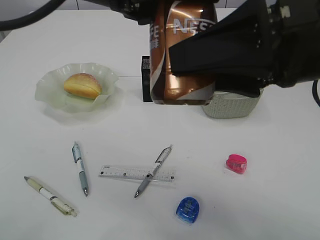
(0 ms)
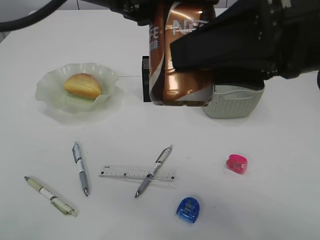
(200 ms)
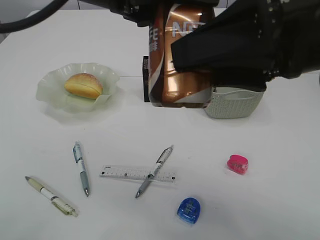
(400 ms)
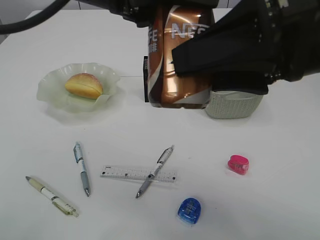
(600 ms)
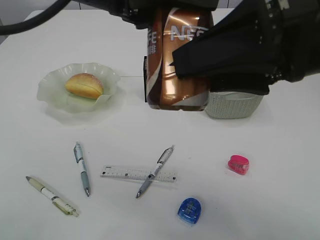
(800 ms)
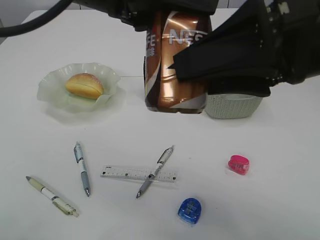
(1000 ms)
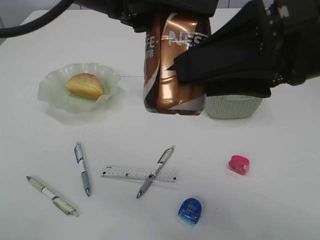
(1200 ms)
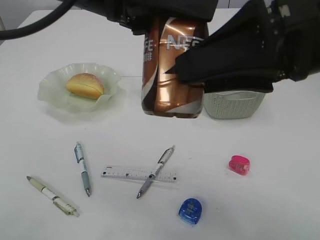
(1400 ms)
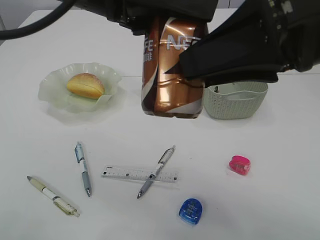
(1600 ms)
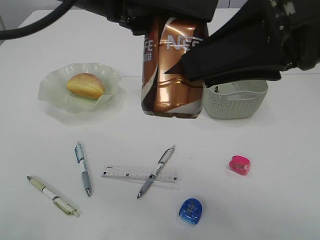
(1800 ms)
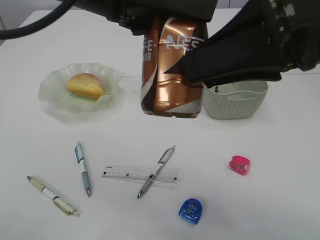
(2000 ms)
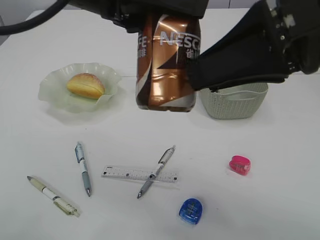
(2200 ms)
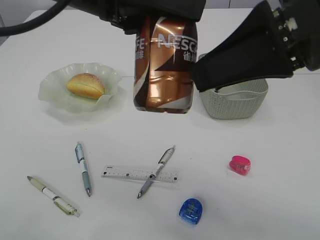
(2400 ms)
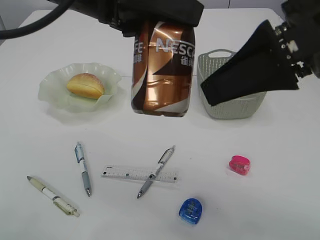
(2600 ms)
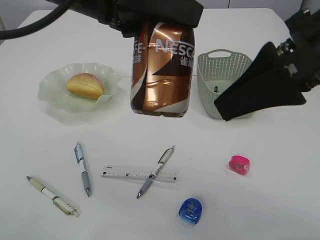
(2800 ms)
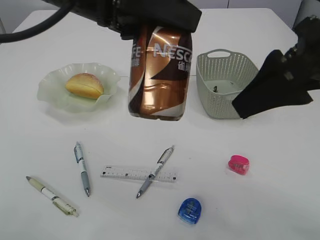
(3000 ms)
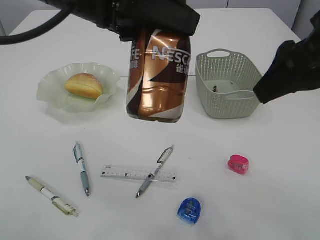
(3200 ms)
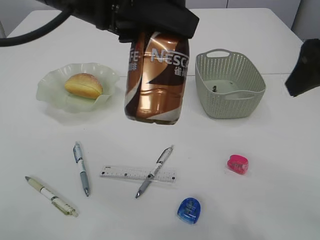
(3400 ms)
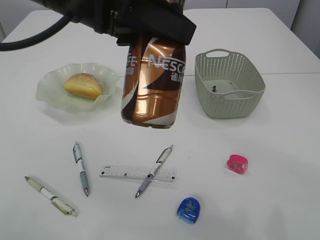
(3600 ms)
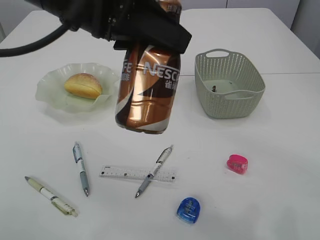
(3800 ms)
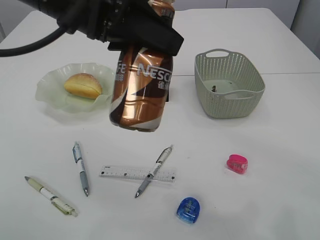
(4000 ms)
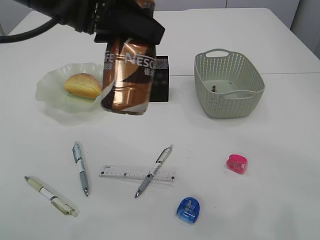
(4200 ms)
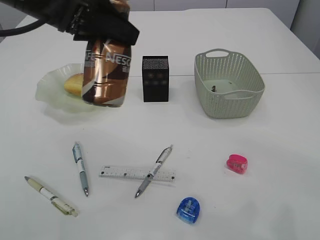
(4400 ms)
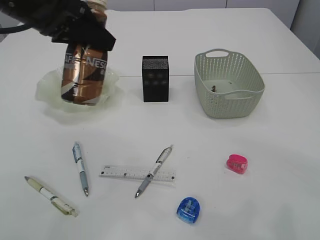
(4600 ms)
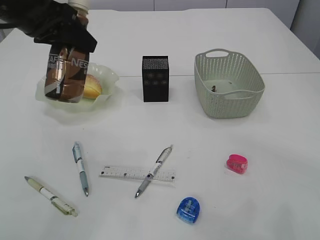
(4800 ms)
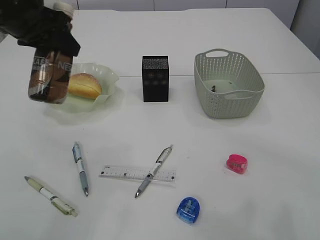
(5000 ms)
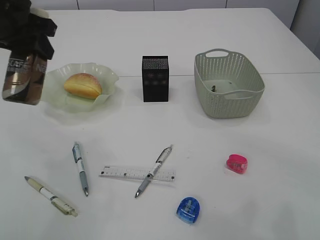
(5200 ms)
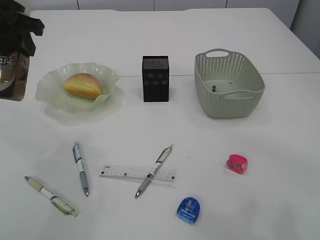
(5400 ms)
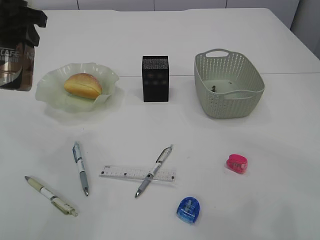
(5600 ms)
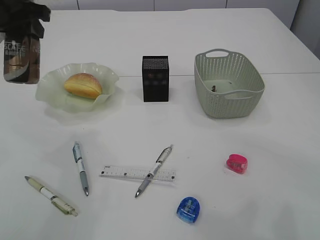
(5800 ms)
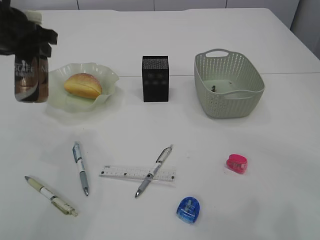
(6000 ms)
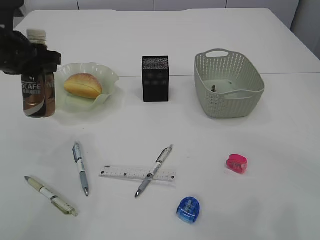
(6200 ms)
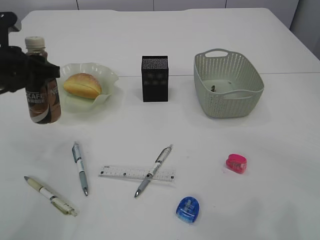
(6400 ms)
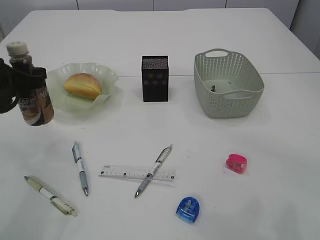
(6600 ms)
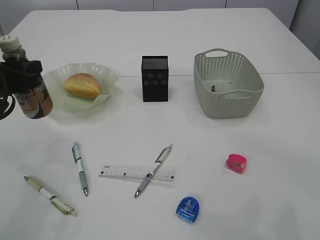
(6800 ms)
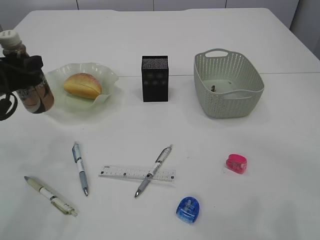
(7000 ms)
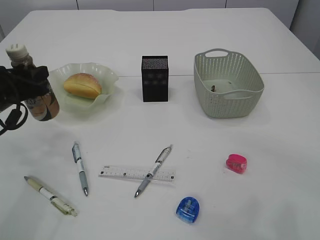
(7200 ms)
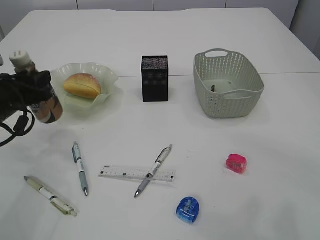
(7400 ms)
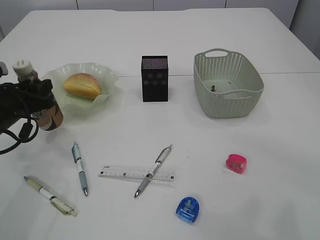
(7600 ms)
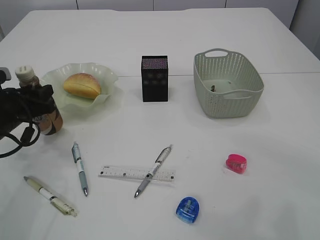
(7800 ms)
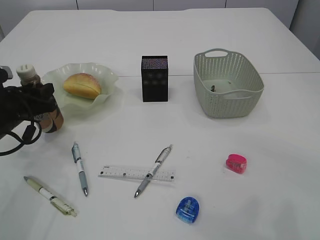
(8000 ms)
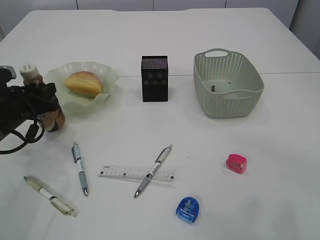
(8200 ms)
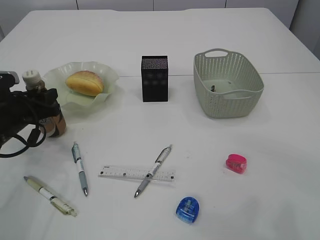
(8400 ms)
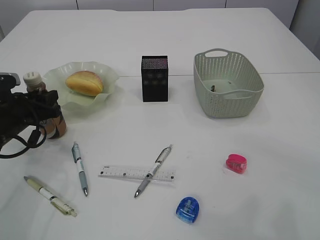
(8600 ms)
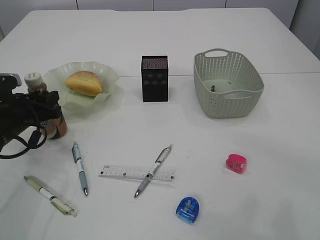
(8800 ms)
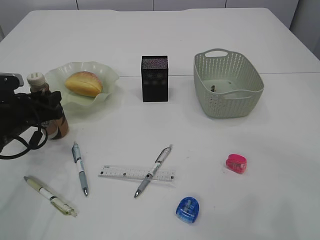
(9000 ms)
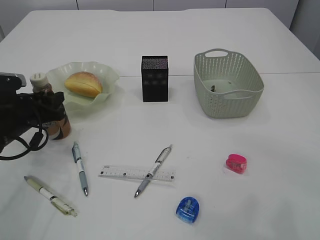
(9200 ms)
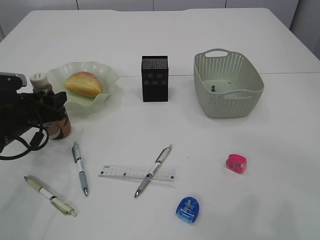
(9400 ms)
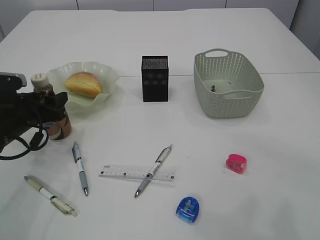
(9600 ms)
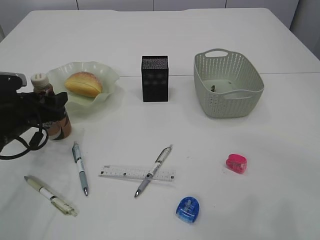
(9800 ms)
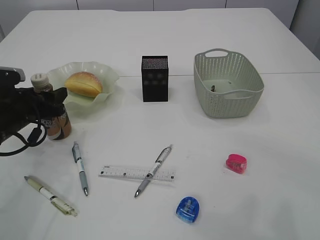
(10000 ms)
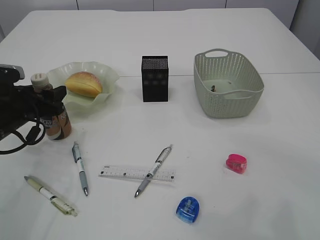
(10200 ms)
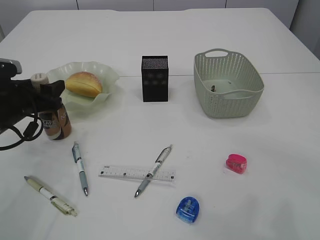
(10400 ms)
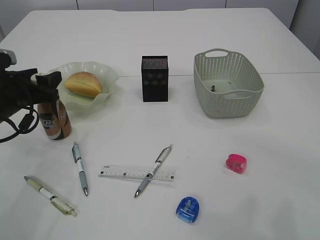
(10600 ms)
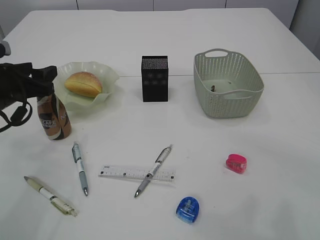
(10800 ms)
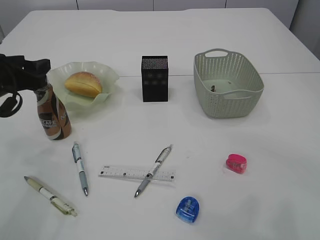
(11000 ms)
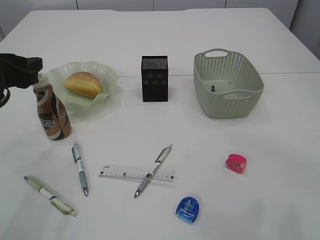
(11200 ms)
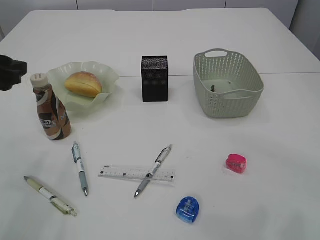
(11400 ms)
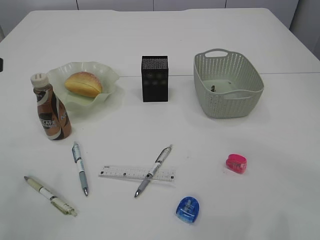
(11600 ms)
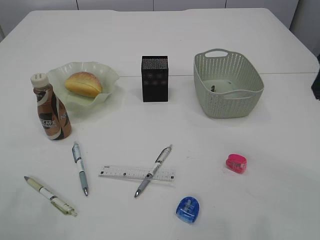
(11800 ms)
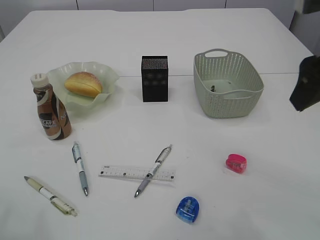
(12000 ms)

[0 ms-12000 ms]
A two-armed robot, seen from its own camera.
Step, 0 ms to 2800 ms: transfer the bottle to the left arm.
Step, 3000 ms to 11200 ms: Place the bottle.
0 ms to 1600 ms: The grippers make only small movements.
3000 ms to 4400 ms: The right gripper goes roughly 10 cm to the right. Meanwhile the left gripper travels to the left by roughly 5 cm.
4400 ms to 6000 ms: The left gripper moves to the left, forward and downward, approximately 15 cm.
6000 ms to 7600 ms: The left gripper travels downward by some 15 cm.
7600 ms to 9000 ms: The grippers move only a little.
9000 ms to 10400 ms: The left gripper opens its fingers.
10400 ms to 12000 ms: The right gripper moves some 5 cm, while the left gripper heads upward and backward, covering approximately 25 cm.

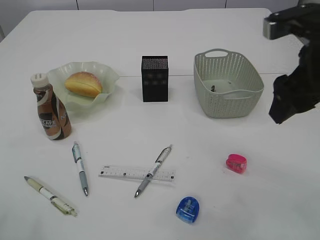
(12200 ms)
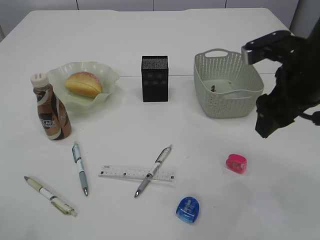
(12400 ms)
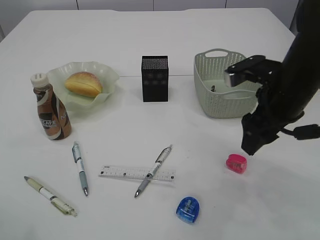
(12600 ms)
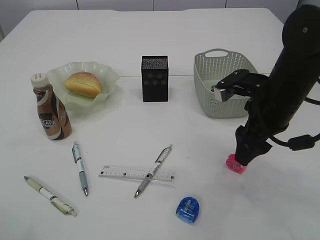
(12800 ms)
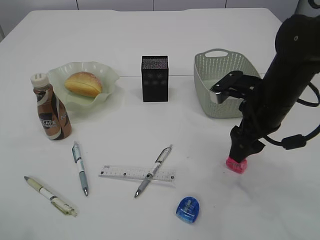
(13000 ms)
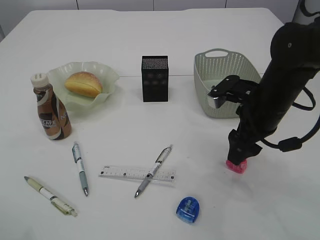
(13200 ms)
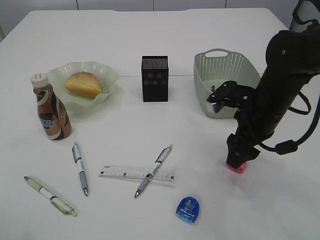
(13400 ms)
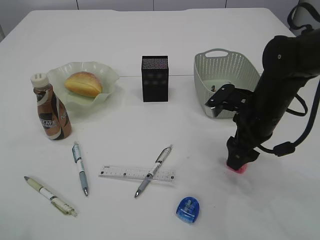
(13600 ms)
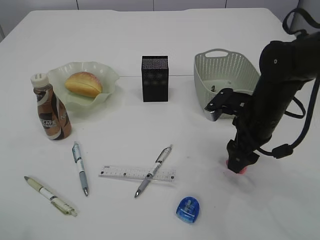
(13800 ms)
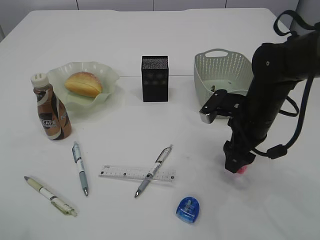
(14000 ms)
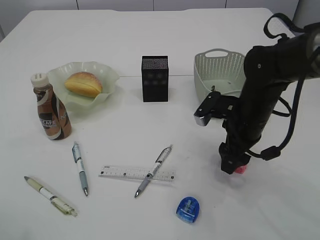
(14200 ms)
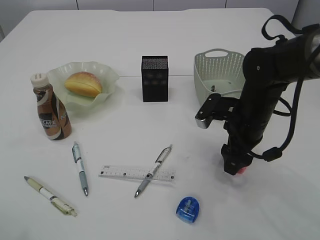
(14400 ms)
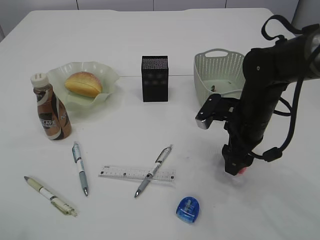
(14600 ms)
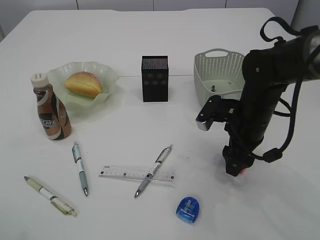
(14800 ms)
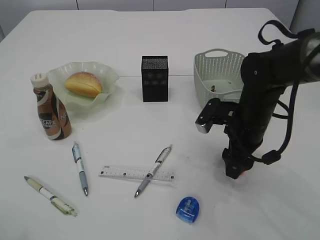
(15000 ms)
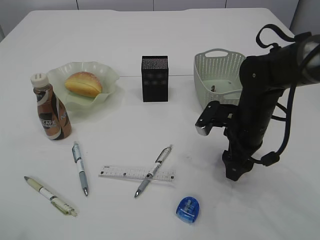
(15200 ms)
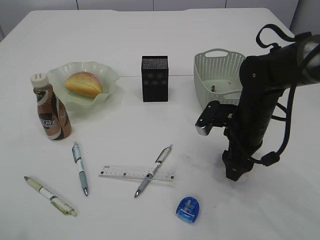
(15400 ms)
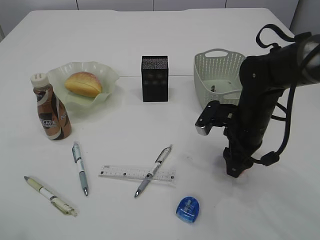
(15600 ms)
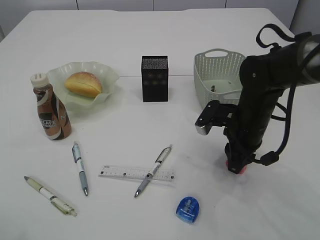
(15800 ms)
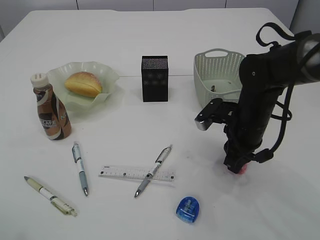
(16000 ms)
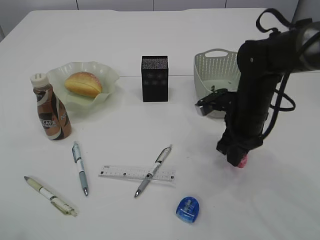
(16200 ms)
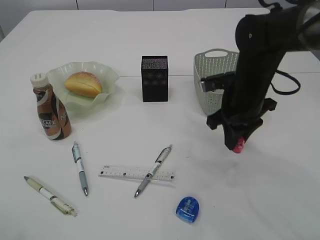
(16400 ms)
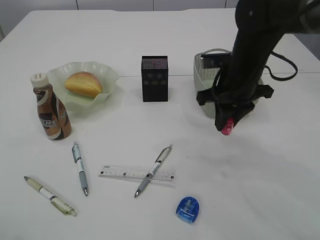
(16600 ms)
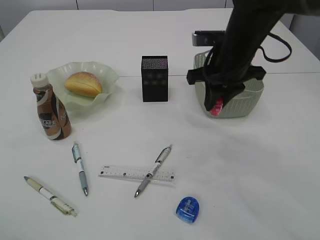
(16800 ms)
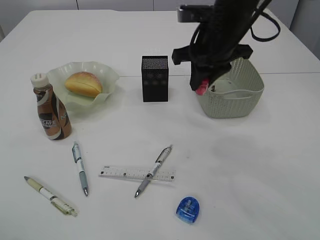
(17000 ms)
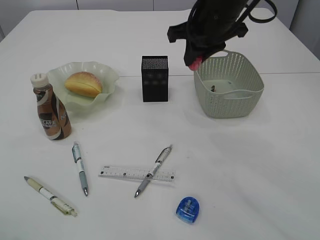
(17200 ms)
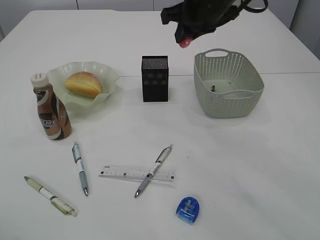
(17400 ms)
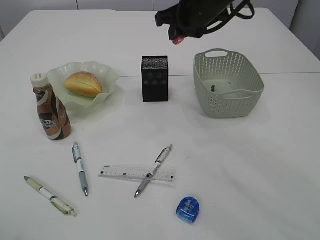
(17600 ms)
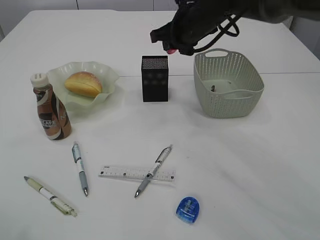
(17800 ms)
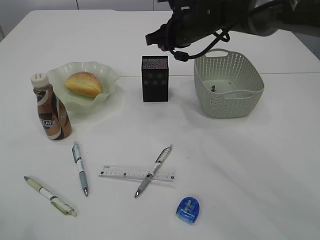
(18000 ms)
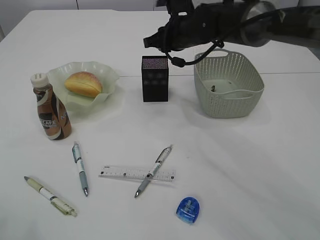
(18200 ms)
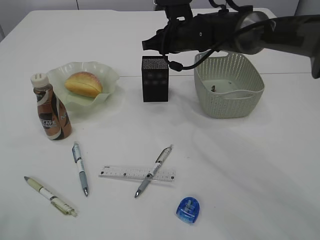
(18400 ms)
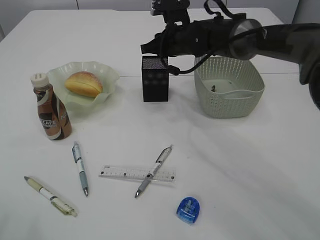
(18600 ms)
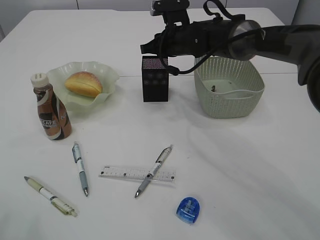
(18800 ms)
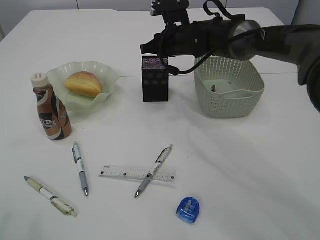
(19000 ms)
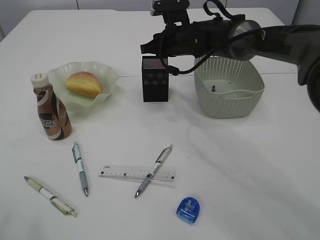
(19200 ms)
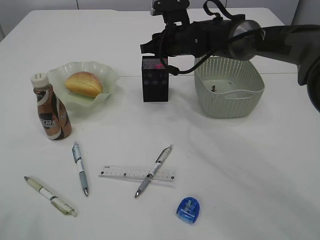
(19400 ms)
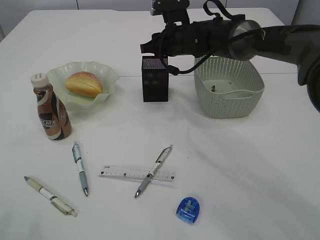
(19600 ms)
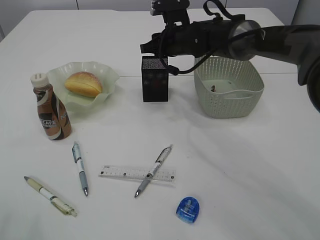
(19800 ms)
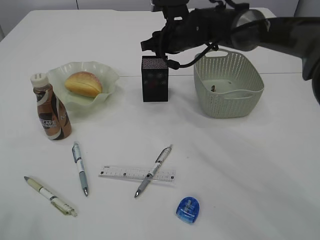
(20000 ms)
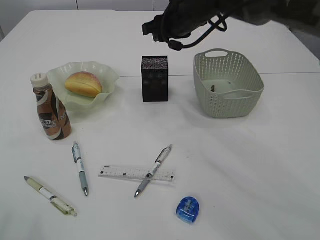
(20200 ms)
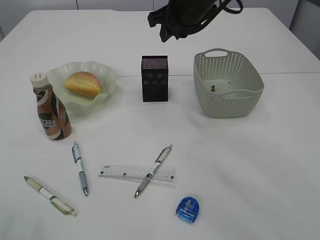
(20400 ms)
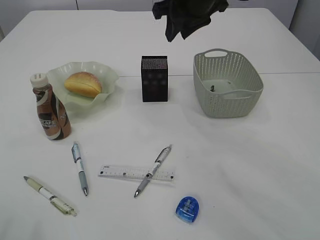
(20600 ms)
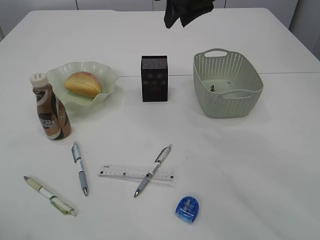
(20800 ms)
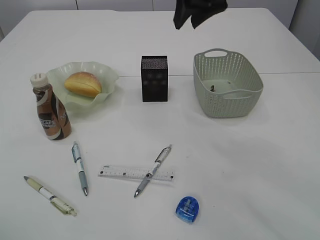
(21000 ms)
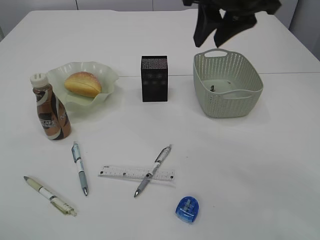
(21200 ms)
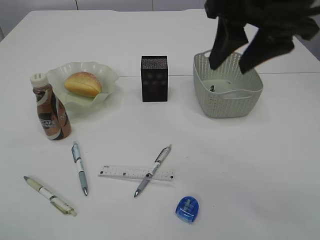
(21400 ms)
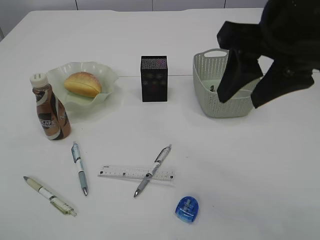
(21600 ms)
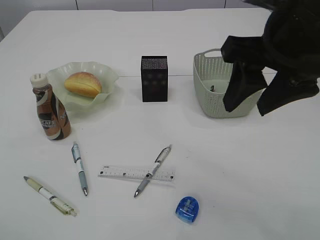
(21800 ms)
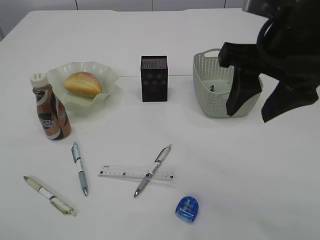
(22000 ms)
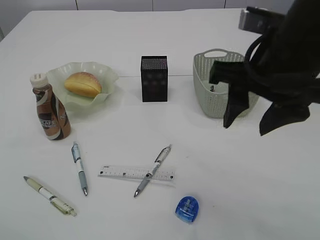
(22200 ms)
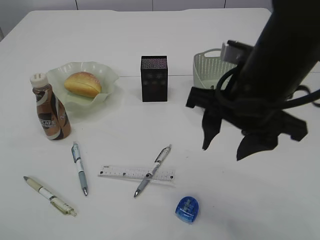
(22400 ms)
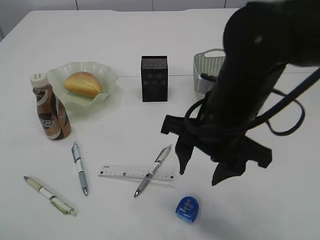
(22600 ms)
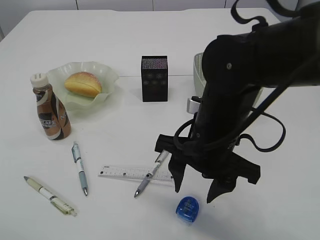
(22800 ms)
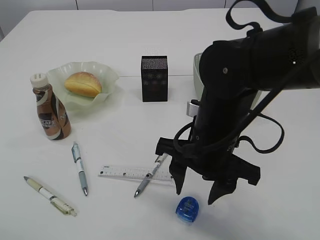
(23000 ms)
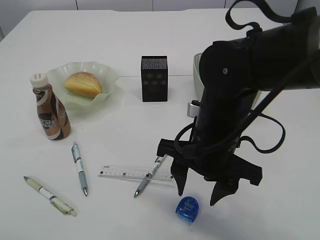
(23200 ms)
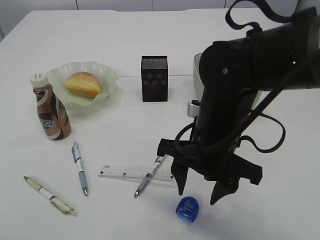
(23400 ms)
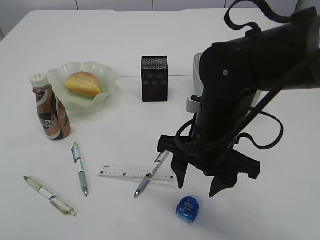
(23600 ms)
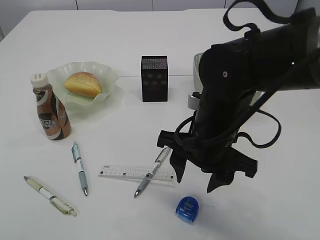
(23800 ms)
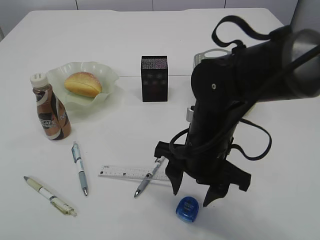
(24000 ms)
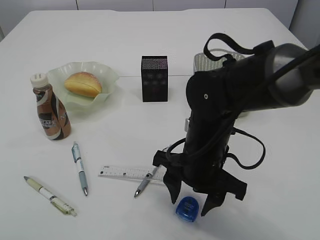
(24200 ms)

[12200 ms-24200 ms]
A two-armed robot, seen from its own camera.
Step, 12200 ms to 16600 ms: Pick up the red pencil sharpener.
Step, 16800 ms to 20400 ms: Place the red pencil sharpener into the pen holder.
12200 ms to 13800 ms: The right gripper moves downward and forward, approximately 15 cm.
13800 ms to 15200 ms: There are only small adjustments of the grippers.
15200 ms to 16600 ms: The right gripper moves upward, about 10 cm, and closes up.
16600 ms to 18200 ms: The right gripper heads forward and to the left, covering roughly 15 cm.
18200 ms to 19800 ms: The grippers stay close to where they were, moving slightly.
19800 ms to 21200 ms: The right gripper is displaced upward and backward by about 25 cm.
21200 ms to 22600 ms: The right gripper moves downward and backward, about 15 cm.
22600 ms to 24200 ms: The right gripper shifts approximately 10 cm downward.
